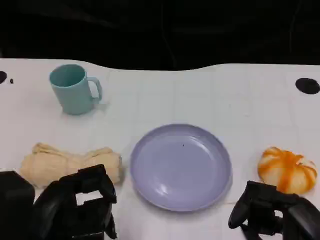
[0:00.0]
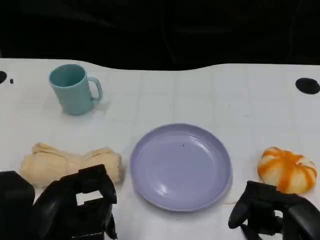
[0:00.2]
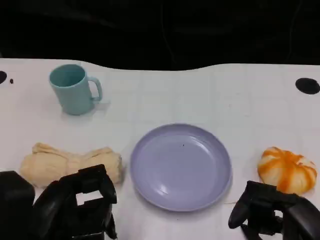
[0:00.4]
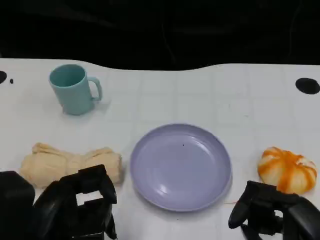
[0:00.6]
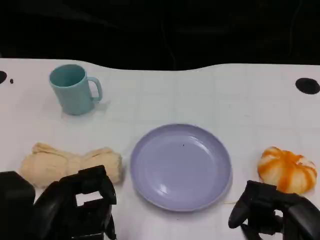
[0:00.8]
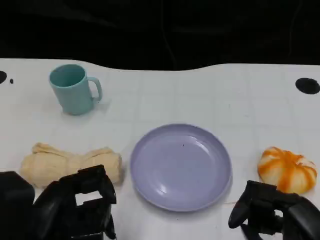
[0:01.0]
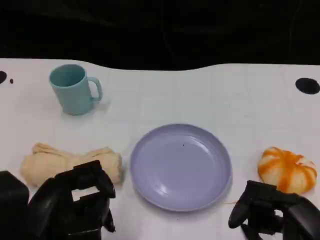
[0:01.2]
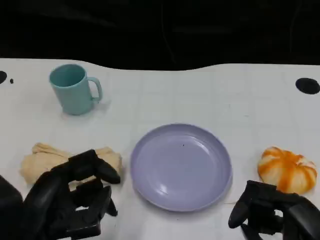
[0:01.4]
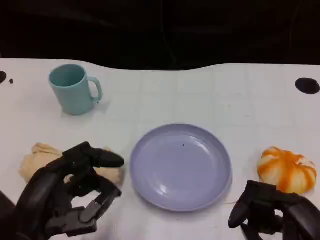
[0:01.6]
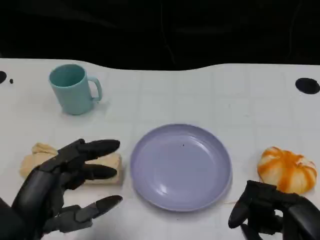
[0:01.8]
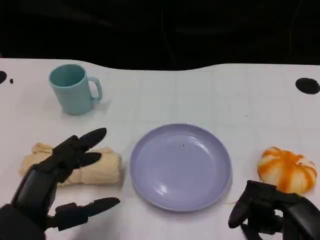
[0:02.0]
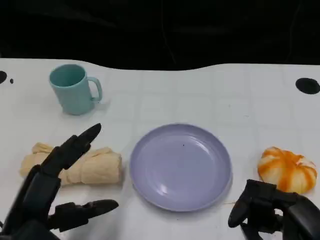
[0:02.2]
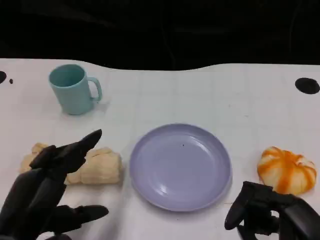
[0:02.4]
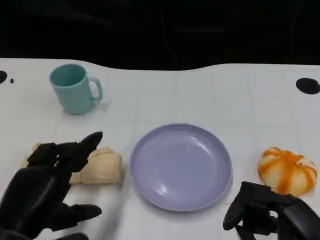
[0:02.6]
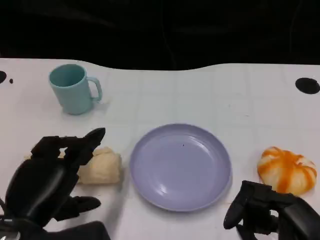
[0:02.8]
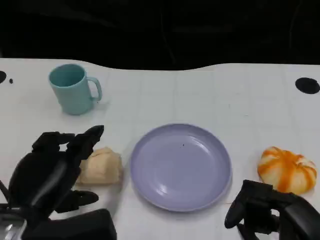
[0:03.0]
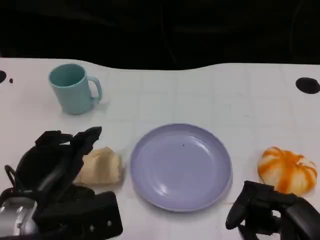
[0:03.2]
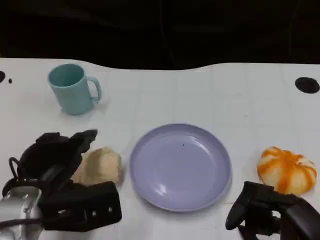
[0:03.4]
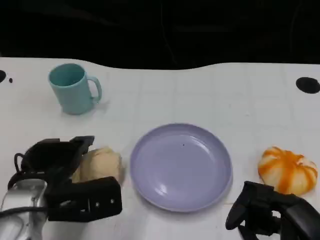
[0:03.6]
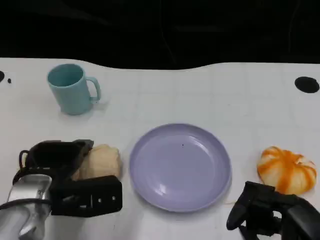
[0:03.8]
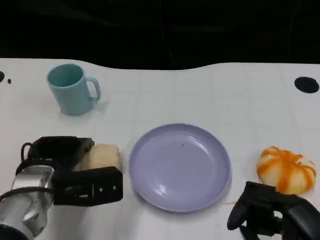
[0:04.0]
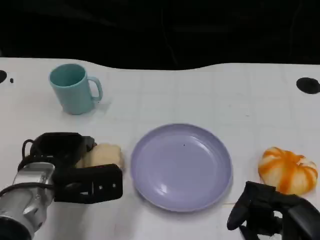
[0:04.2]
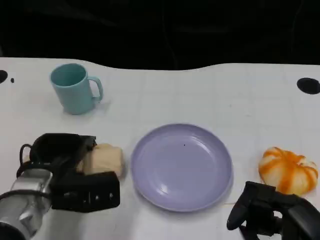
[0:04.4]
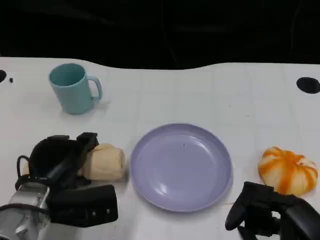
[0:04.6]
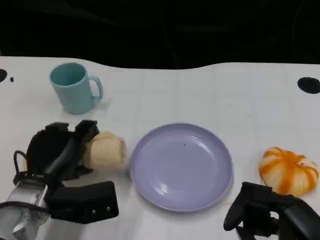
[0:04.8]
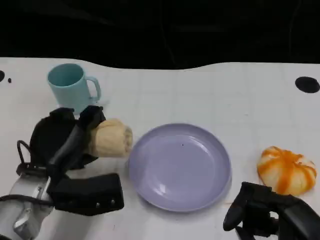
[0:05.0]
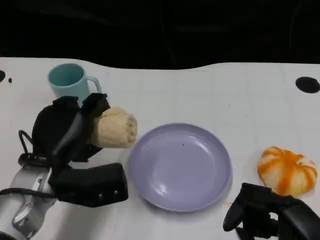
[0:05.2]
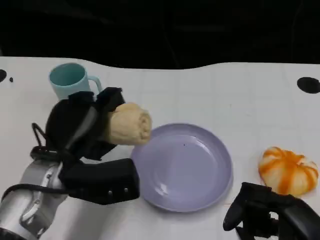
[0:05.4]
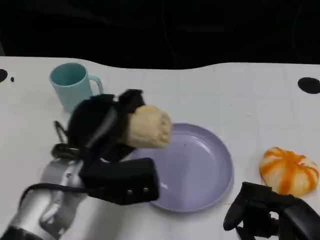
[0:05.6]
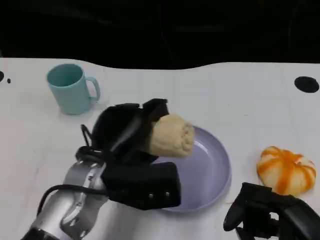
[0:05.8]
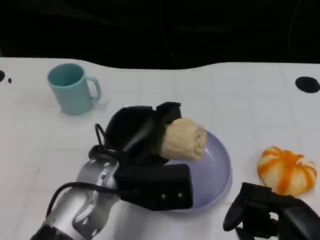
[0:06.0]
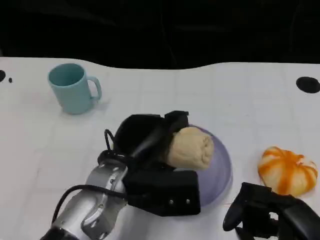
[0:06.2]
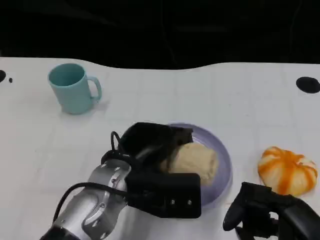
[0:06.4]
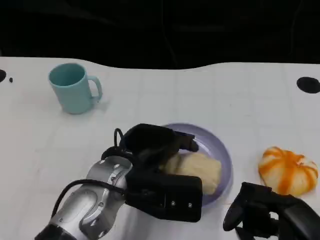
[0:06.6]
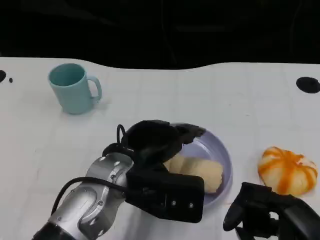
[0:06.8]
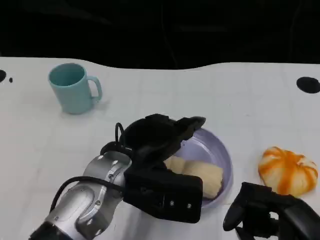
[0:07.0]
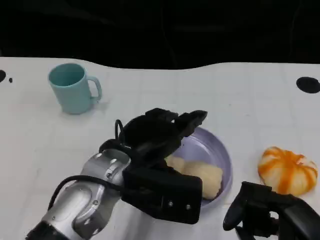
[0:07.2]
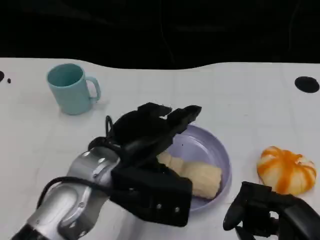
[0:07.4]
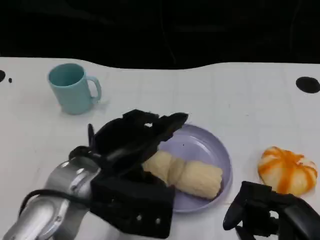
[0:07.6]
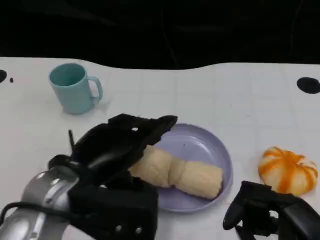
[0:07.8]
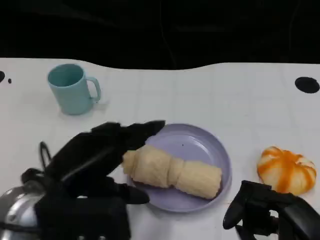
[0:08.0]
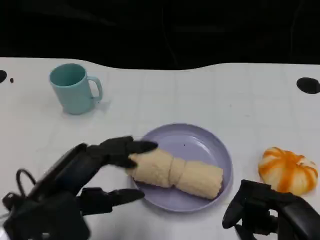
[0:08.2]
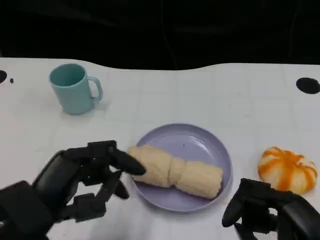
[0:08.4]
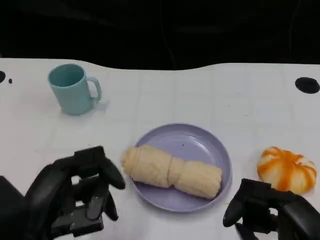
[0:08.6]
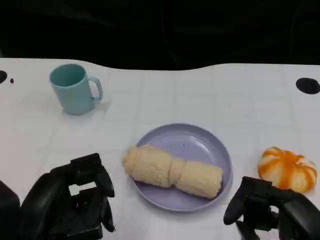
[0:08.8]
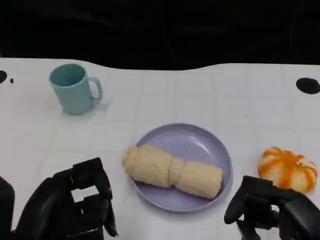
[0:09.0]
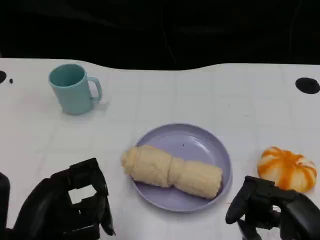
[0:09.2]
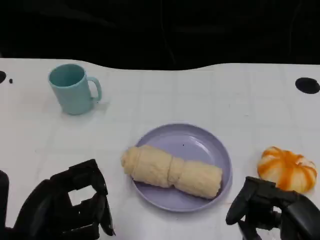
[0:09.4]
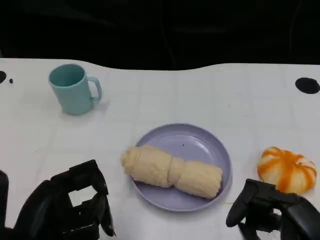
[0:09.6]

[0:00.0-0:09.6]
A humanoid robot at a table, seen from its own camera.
Task of the whole recording: Grasp the towel on the left side of the plate with the left hand and place it into the plate.
0:00.0 to 0:01.6: There are only small adjustments of the hands.
0:01.6 to 0:03.2: The left hand travels forward by some 5 cm.
0:03.2 to 0:04.8: The left hand is displaced forward by roughly 5 cm.
0:04.8 to 0:06.4: The left hand travels to the right and upward by some 10 cm.
0:06.4 to 0:08.0: The left hand goes roughly 15 cm to the left, backward and upward.
0:08.0 to 0:09.6: The left hand changes place by roughly 5 cm.
